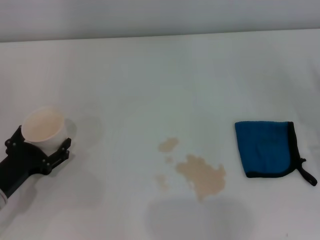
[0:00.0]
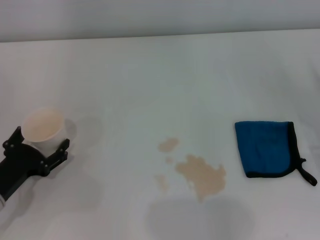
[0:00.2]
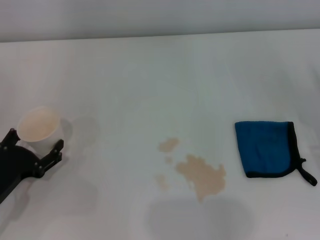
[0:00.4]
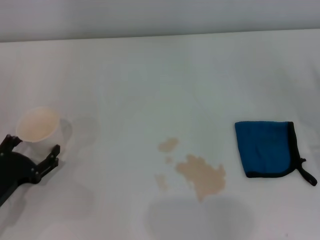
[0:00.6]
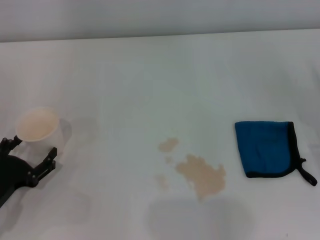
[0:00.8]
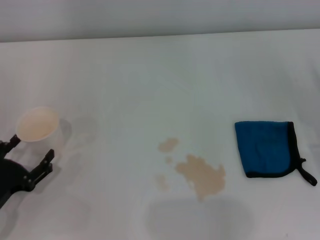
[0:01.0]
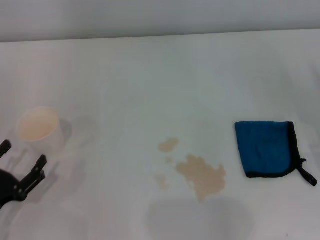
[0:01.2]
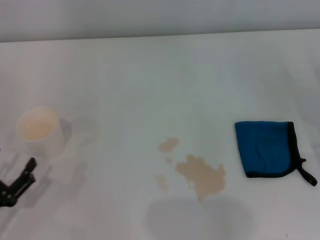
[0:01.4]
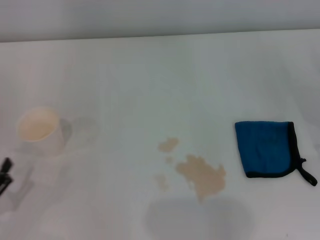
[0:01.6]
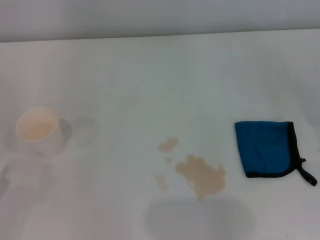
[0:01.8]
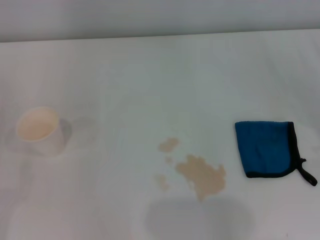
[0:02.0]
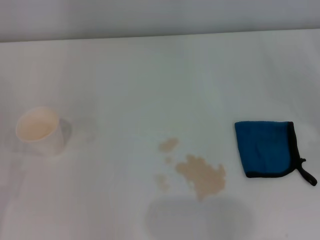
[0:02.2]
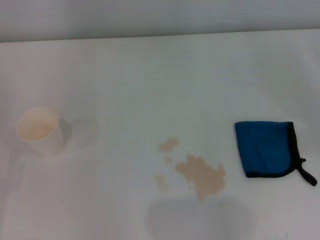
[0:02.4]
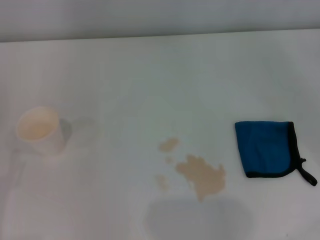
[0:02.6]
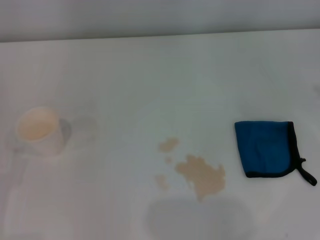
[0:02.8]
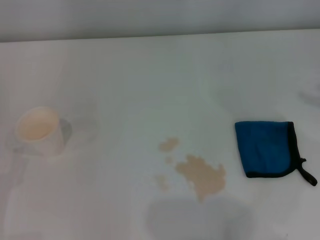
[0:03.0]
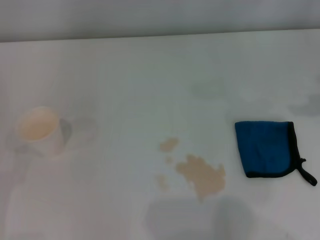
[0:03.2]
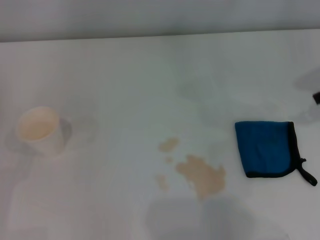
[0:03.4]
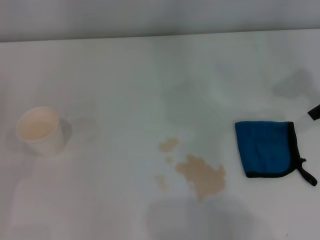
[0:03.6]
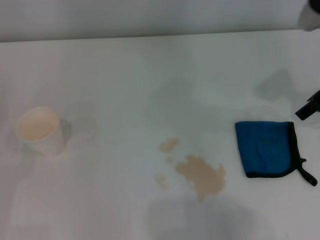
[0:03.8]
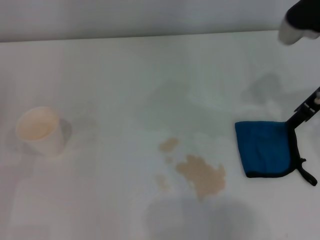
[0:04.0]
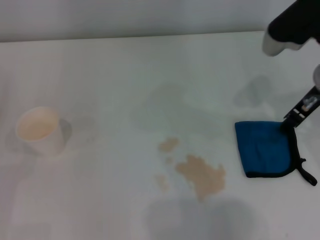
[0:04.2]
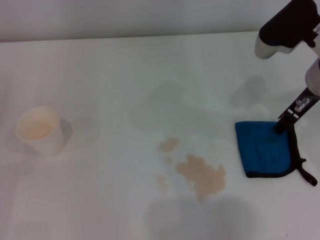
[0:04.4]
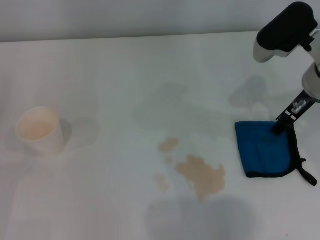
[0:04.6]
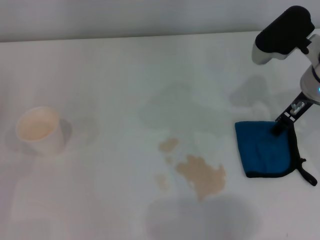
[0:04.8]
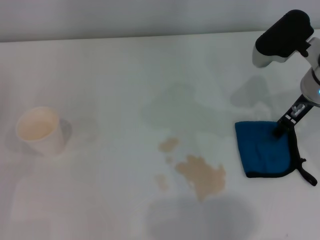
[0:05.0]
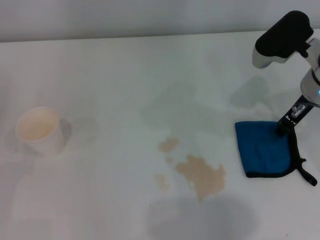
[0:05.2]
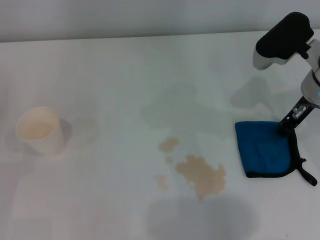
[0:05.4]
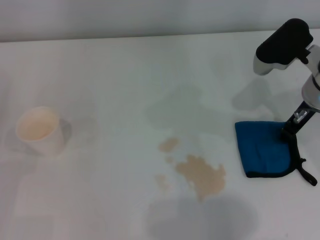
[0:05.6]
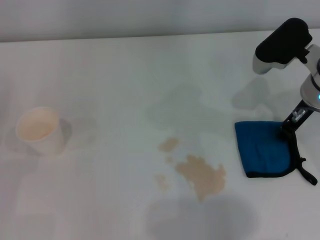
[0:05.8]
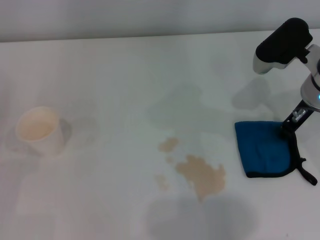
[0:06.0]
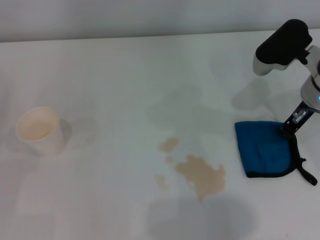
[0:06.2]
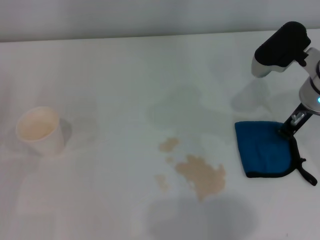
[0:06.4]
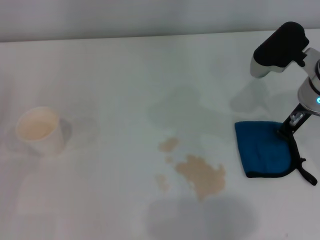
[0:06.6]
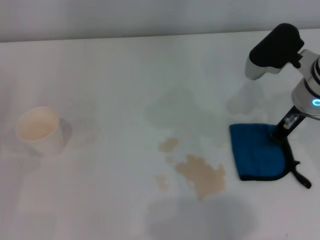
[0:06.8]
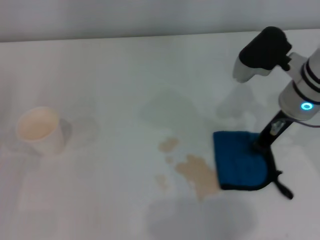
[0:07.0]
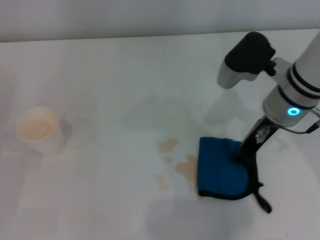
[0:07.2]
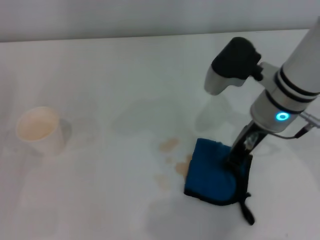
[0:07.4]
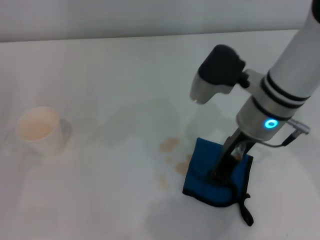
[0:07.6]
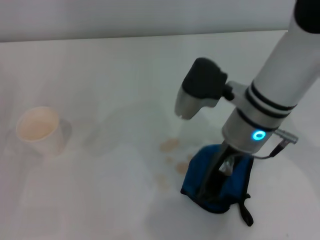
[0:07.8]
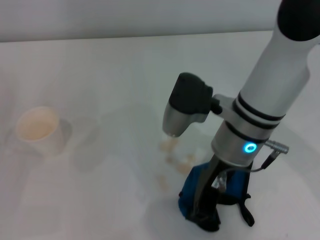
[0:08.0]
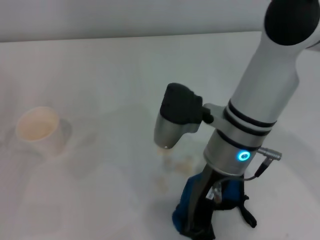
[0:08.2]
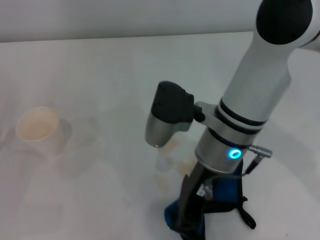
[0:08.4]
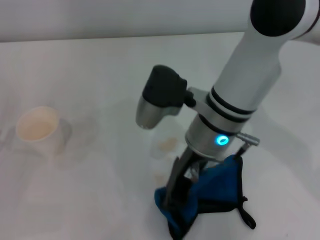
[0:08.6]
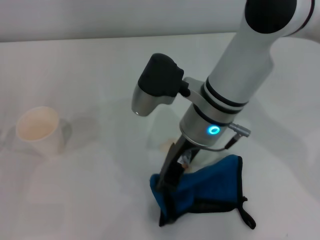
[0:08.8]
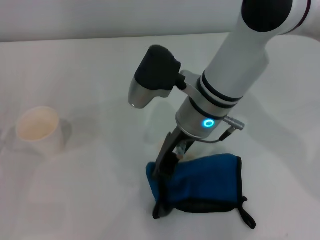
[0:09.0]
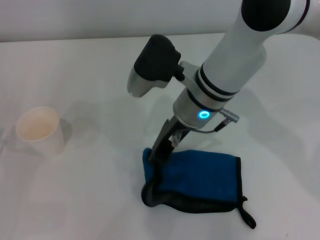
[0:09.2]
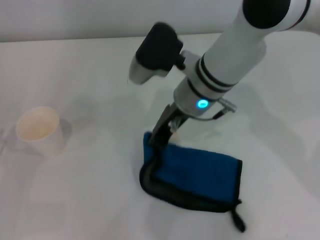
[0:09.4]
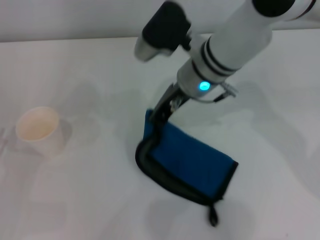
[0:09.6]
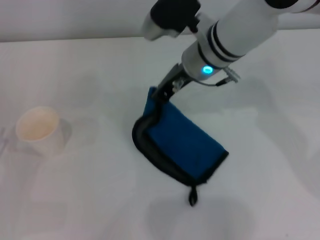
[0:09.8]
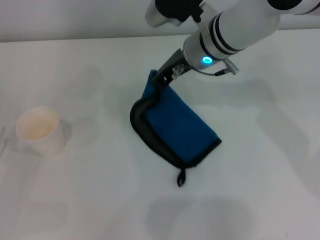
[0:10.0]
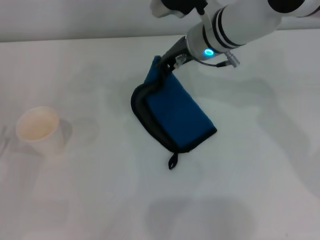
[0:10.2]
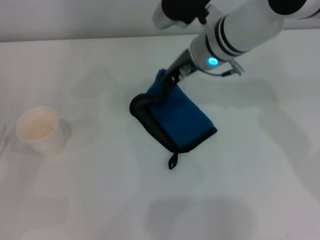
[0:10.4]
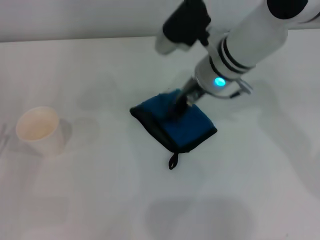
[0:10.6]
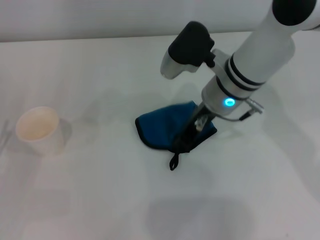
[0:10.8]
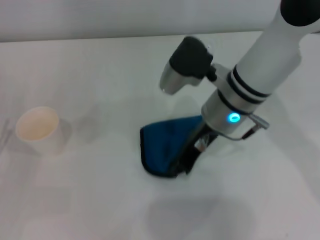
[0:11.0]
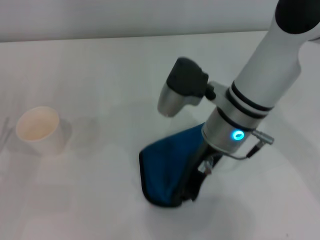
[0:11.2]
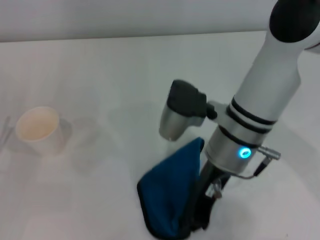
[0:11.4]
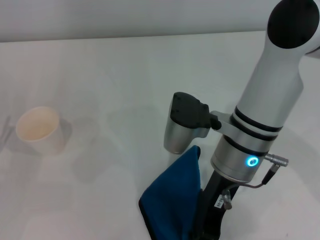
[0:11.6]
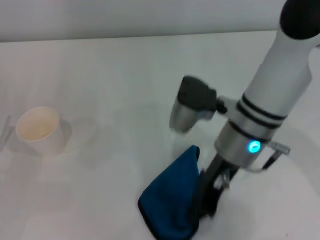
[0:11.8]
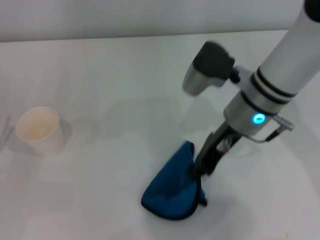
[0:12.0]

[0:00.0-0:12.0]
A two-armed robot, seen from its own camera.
Step, 0:00.8 to 0:05.6: Grasp the rag with the right gripper.
0:00.0 to 0:01.6: The left gripper shifts approximately 10 cm backward.
0:03.0 to 0:04.4: The right gripper moves to the left and downward, roughly 20 cm.
0:04.4 to 0:06.0: The right gripper closes.
0:06.0 to 0:07.6: The right gripper is displaced to the left by roughly 10 cm, and closes up.
0:07.6 to 0:09.0: The right gripper is displaced to the left by approximately 10 cm.
0:09.0 to 0:10.4: The right gripper shifts approximately 10 cm forward.
0:10.4 to 0:12.0: The right gripper goes some 10 cm backward.

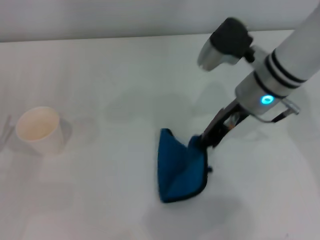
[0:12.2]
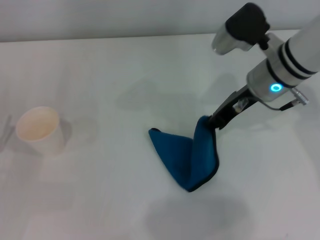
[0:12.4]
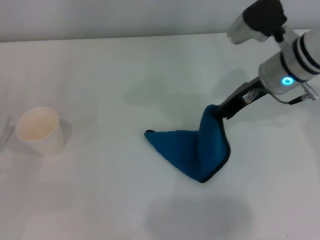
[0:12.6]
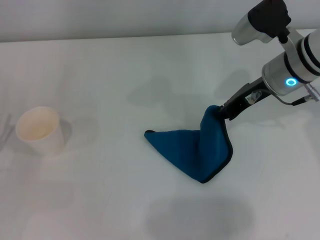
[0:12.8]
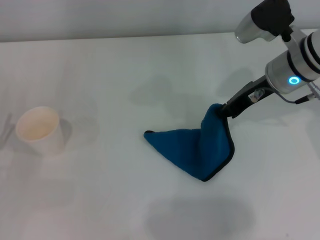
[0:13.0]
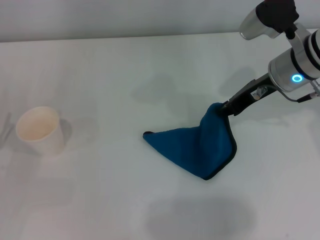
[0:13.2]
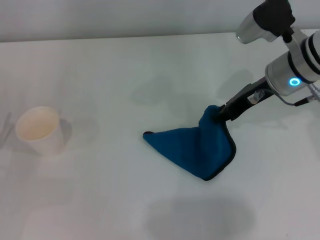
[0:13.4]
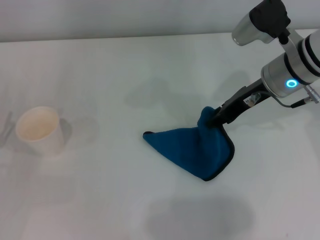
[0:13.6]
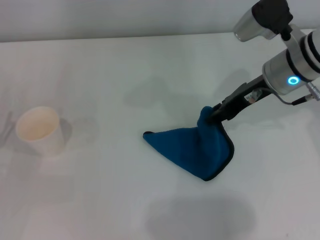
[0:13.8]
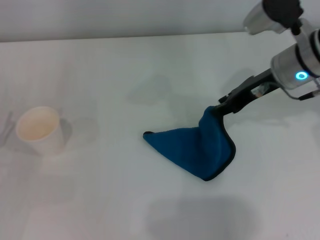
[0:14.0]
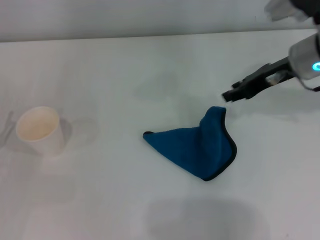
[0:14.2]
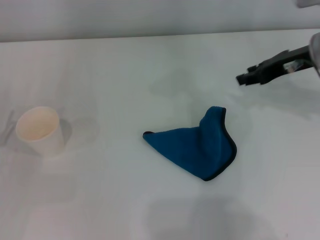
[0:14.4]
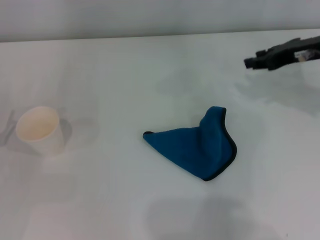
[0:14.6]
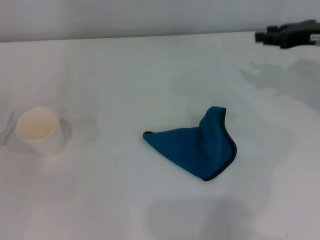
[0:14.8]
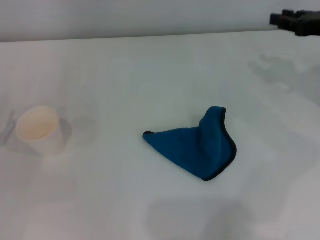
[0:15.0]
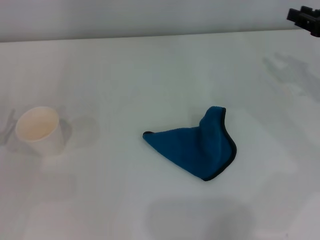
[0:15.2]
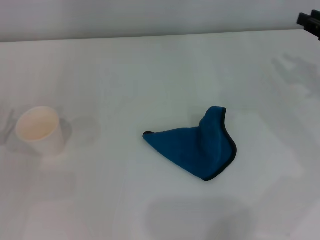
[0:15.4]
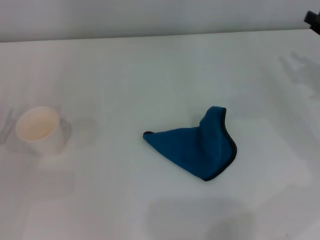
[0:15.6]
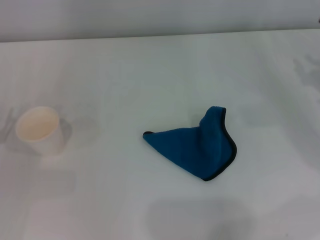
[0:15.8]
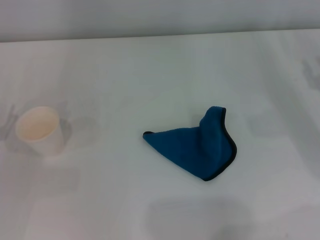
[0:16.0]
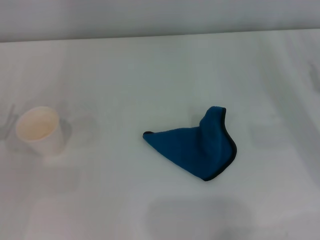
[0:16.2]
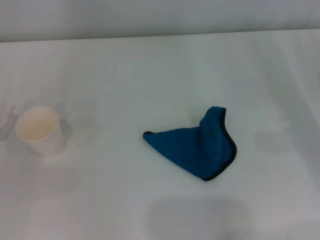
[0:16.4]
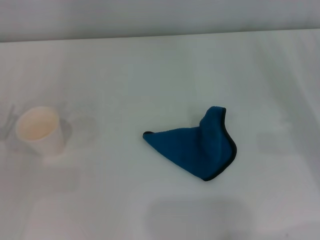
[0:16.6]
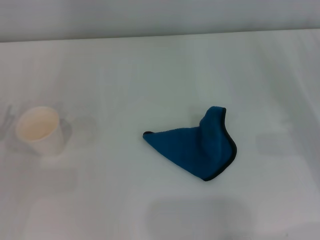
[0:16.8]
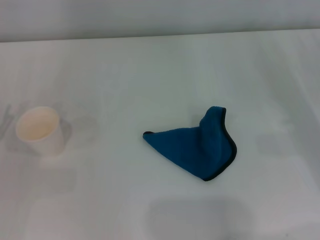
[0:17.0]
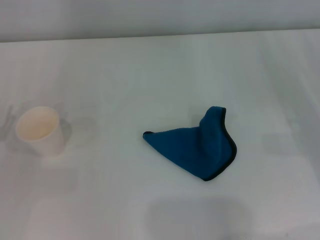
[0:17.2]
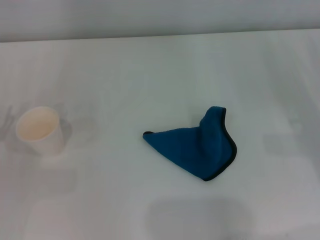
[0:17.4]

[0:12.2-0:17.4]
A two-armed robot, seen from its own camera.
Step, 0:13.2 to 0:13.8: Place the rag on the table with the right gripper.
0:12.2 to 0:14.0: The right gripper shifts some 5 cm to the right, and opens.
0:14.0 to 0:15.6: The right gripper is displaced to the right by about 15 cm.
